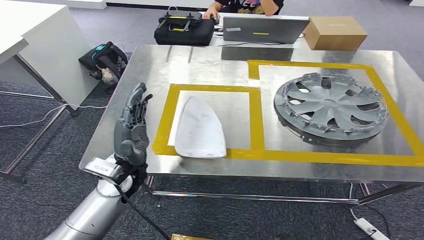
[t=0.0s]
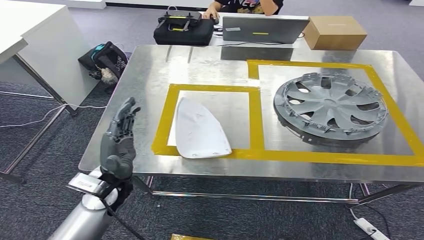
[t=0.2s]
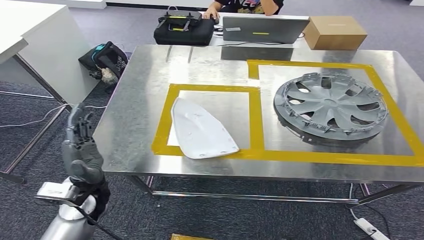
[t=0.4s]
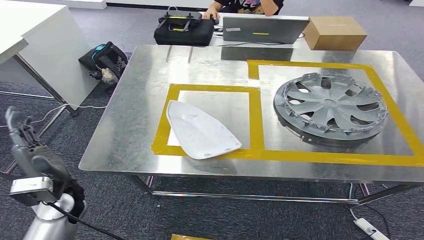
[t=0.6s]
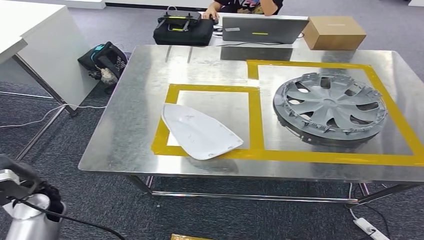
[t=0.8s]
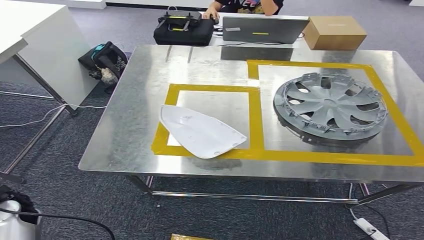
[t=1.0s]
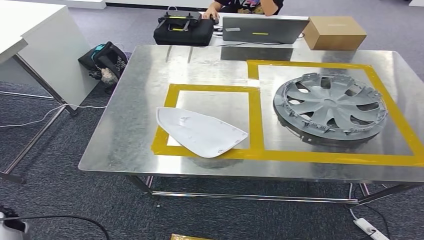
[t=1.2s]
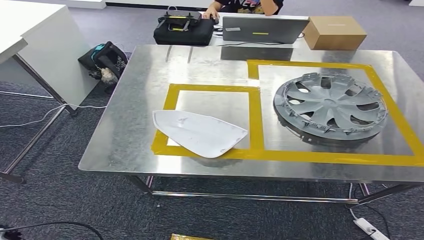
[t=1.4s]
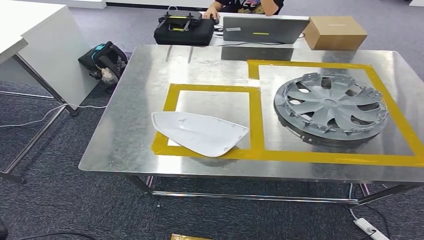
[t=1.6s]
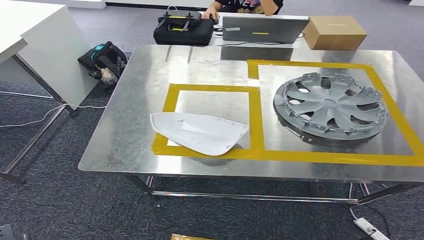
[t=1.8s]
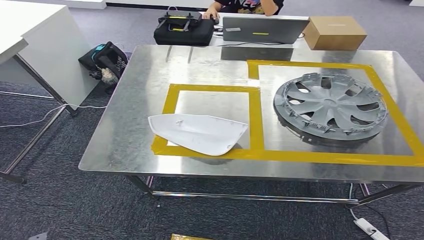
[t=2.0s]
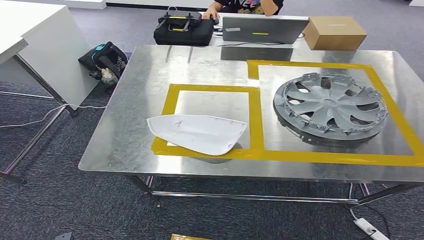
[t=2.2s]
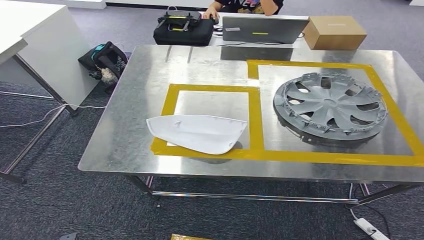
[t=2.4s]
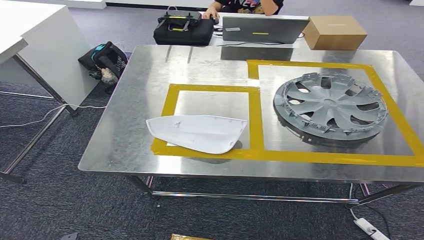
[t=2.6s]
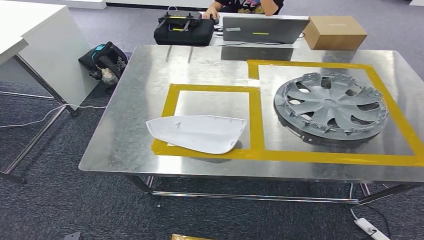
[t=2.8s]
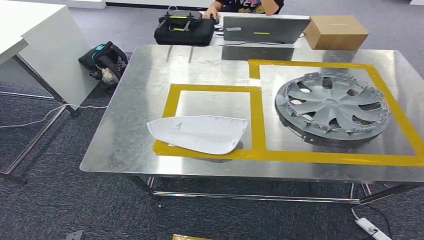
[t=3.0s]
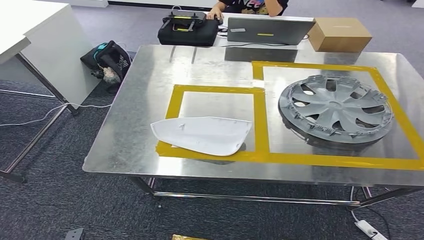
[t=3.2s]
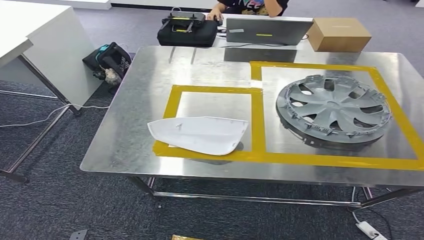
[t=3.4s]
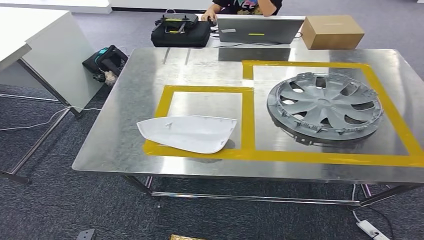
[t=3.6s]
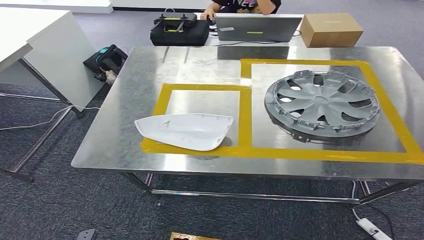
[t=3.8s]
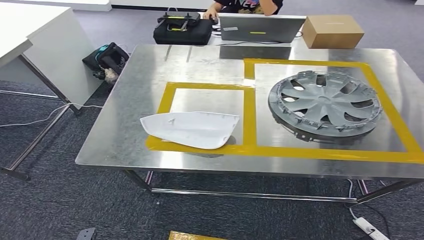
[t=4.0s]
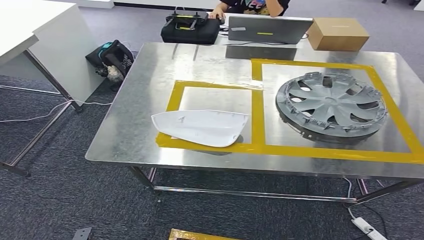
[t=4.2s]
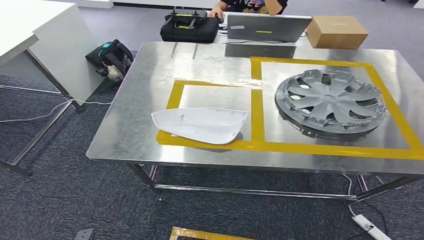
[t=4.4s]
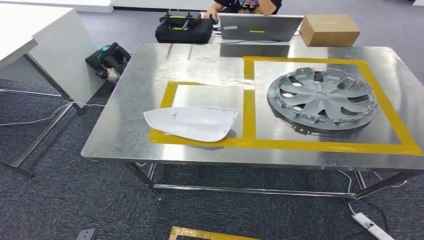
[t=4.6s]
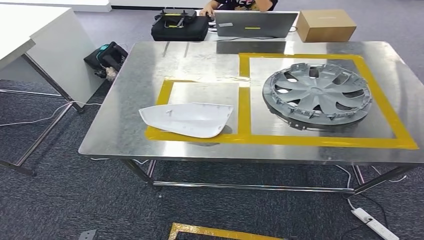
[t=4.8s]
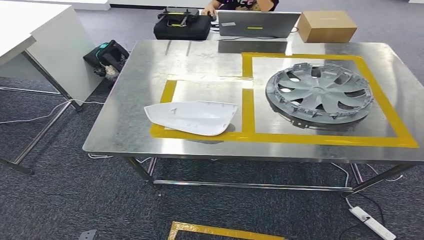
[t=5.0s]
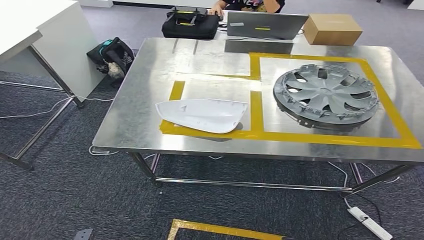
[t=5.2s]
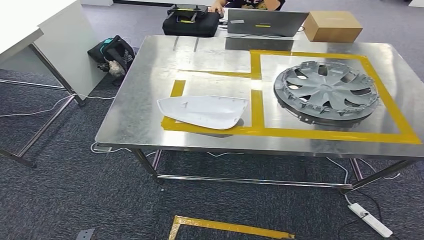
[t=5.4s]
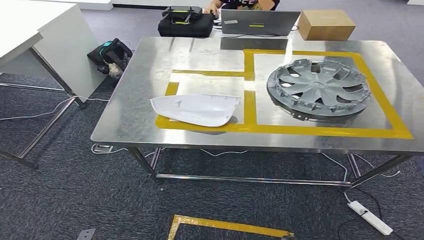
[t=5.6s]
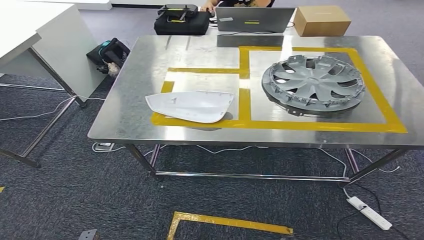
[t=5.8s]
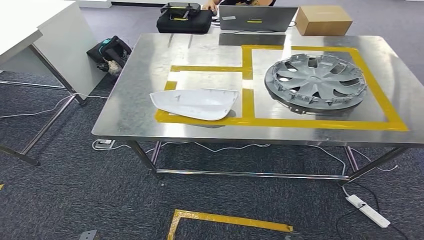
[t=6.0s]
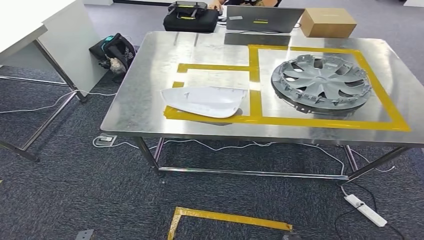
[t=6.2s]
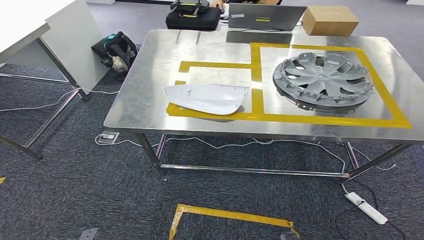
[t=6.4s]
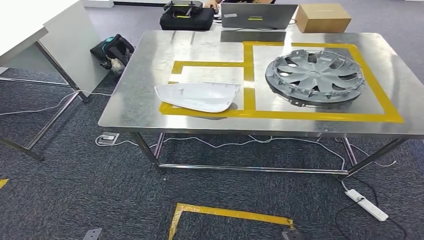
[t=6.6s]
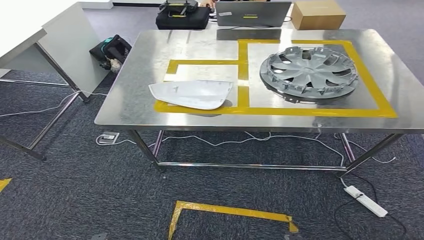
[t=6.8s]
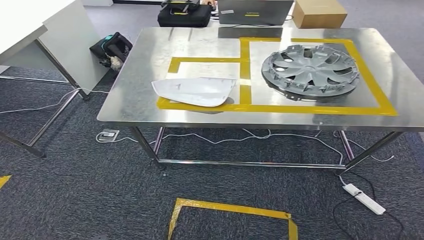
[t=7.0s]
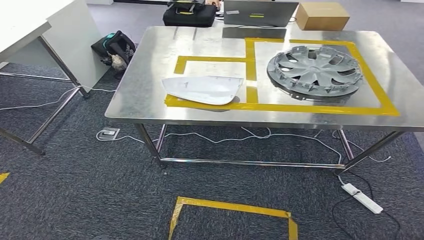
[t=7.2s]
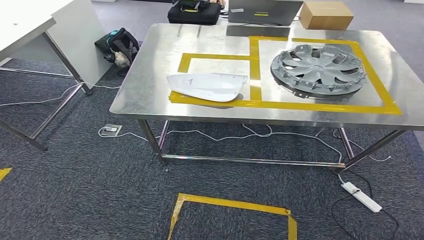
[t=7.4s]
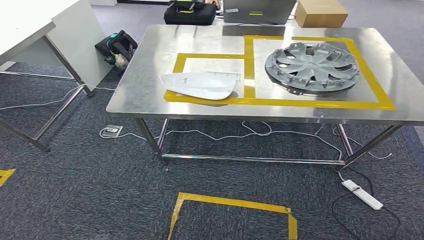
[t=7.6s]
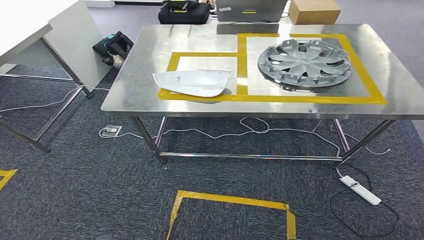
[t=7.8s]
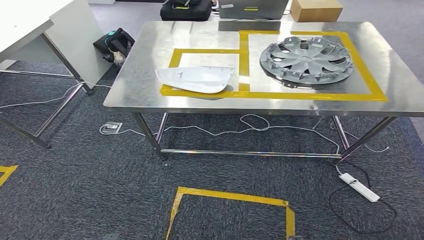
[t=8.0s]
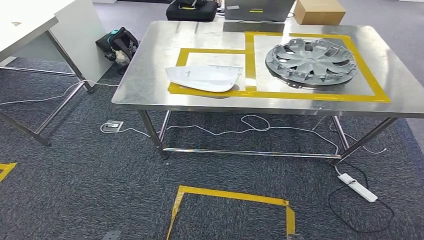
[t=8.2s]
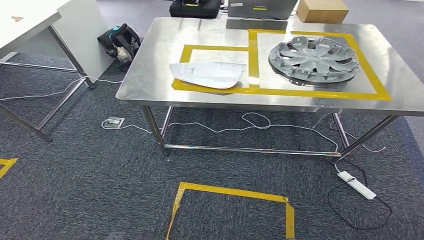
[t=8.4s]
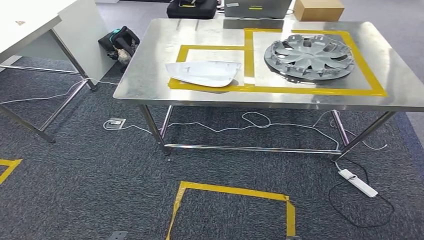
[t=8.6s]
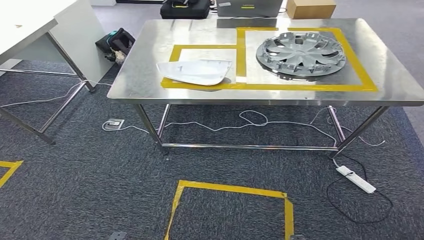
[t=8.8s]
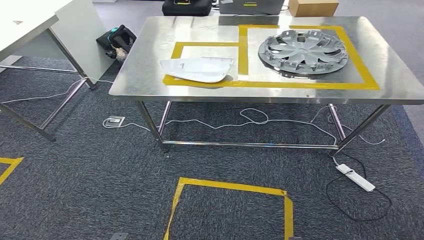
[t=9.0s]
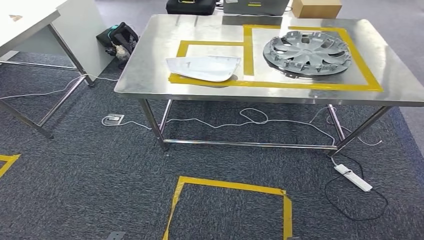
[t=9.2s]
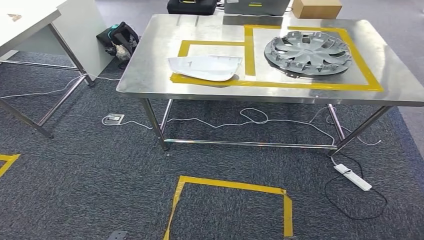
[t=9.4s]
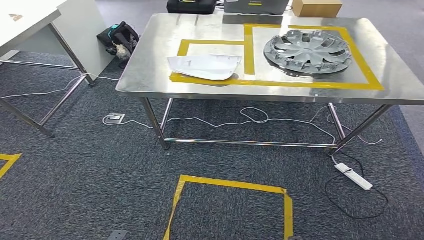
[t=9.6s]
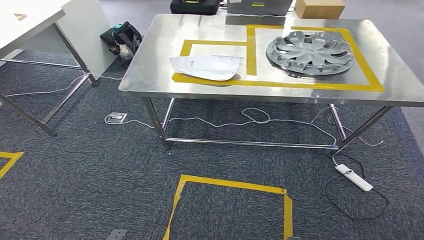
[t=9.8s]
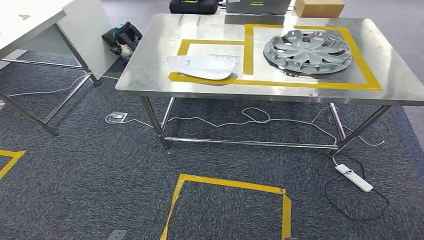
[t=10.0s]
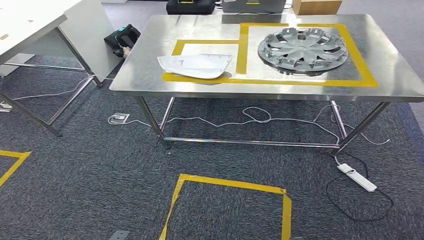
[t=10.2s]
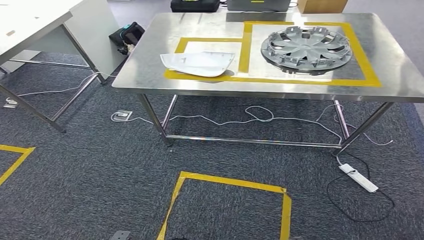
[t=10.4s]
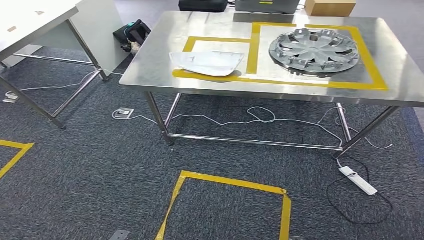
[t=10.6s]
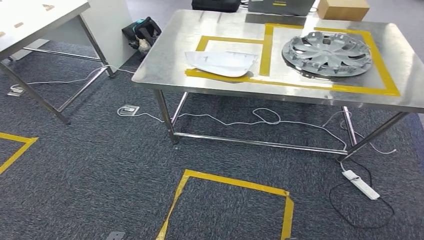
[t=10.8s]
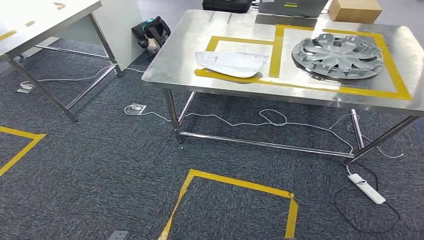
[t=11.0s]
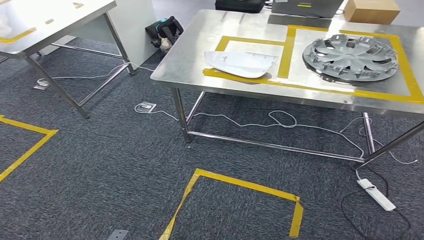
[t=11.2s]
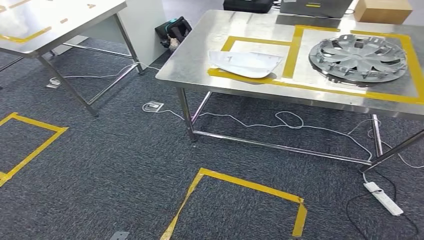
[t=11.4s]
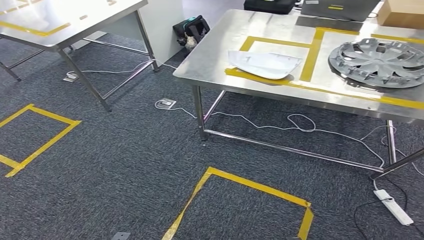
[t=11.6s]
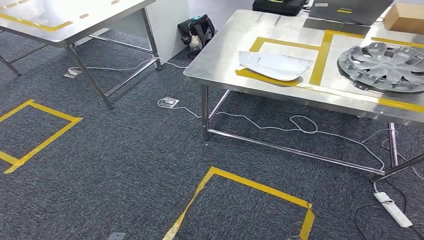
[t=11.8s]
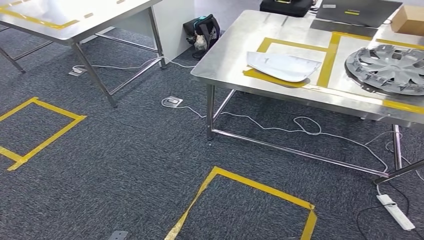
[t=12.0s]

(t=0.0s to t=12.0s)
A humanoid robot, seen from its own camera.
t=0.0s - t=1.6s: The left hand goes roughly 40 cm to the left, downward and backward.
t=1.6s - t=3.0s: The left hand is displaced to the right, backward and downward by roughly 15 cm.

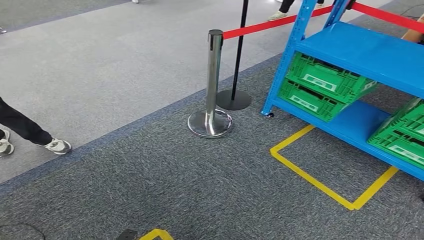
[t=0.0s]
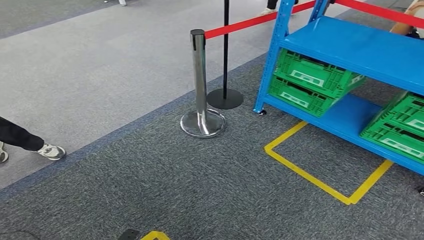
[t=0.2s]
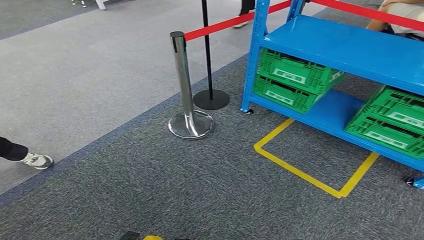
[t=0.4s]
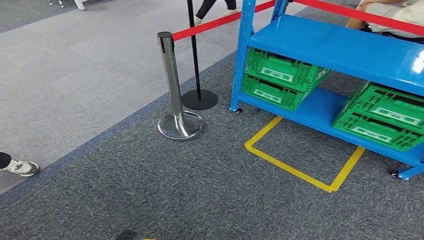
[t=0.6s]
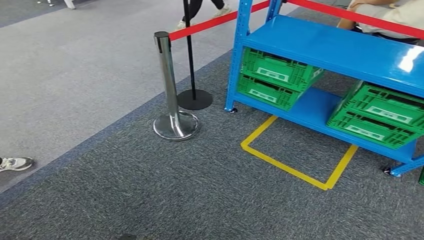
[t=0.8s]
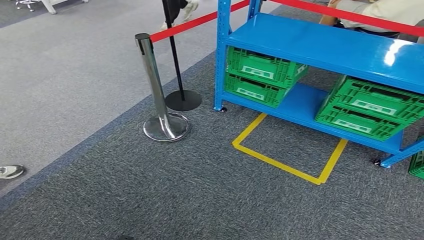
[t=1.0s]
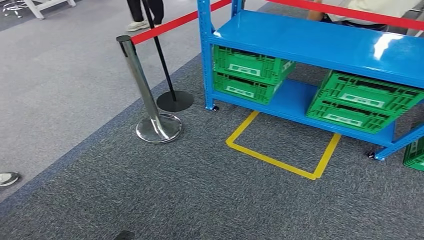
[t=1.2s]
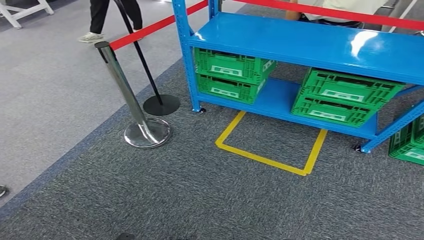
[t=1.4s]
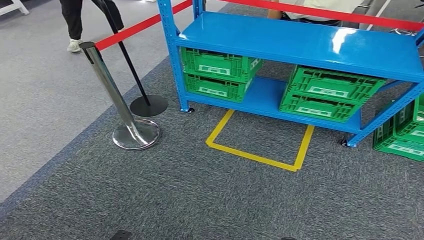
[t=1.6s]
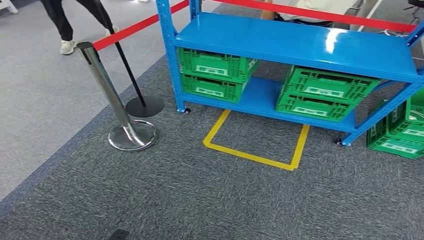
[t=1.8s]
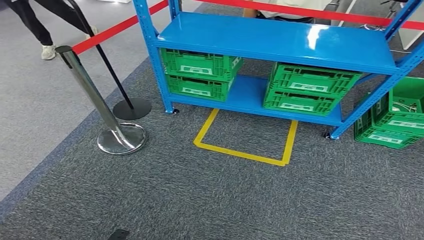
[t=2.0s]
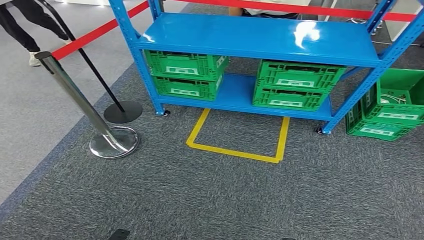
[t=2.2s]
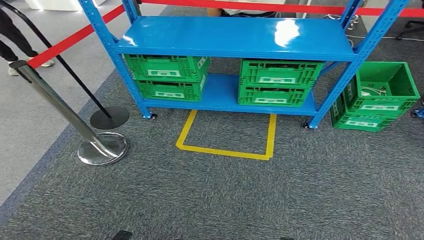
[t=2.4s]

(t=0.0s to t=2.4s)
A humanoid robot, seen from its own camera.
Step, t=0.0s - t=2.4s: Move to the initial position of the workbench.
